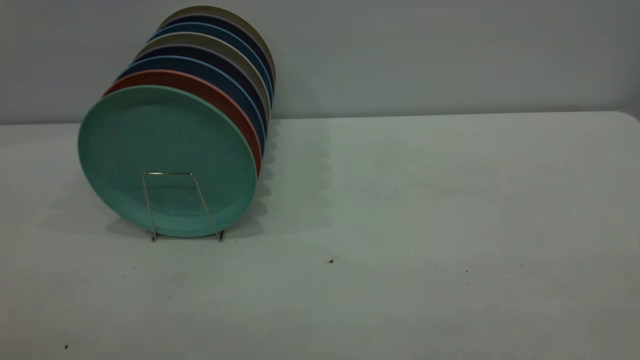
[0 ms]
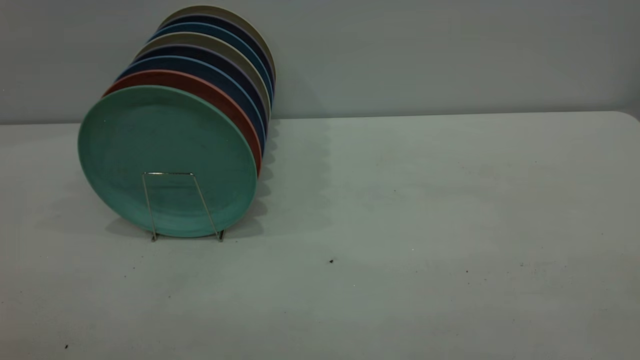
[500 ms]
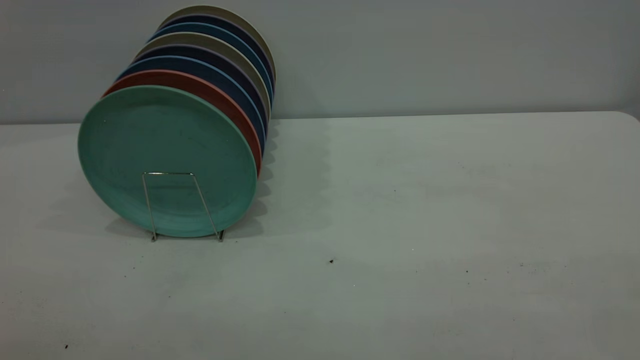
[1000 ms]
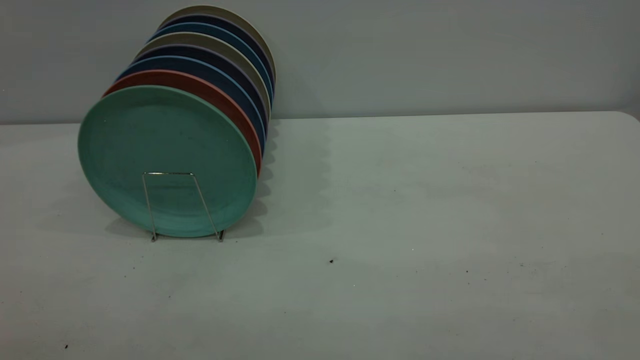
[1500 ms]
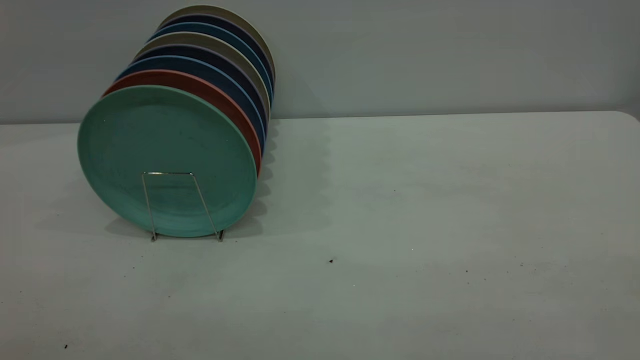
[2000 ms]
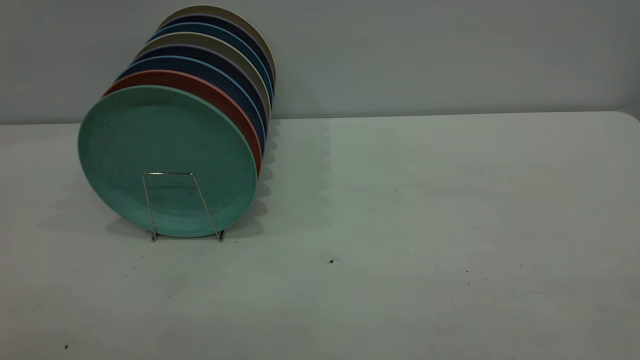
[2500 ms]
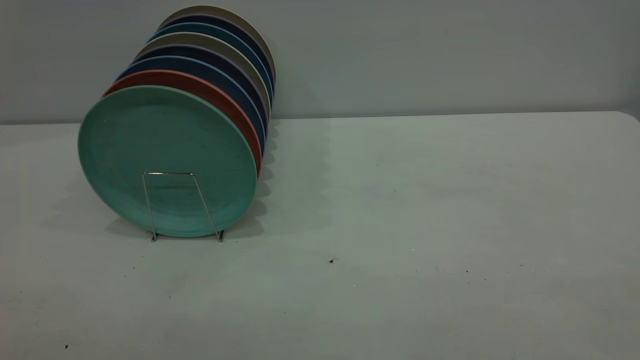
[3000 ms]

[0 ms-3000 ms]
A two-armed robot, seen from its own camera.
Task of the whole recording: the right gripper grasp the green plate, the right gripper pass the green plate to the left gripper, and the left gripper place the green plate on the plate rack.
0 ms to 1500 ms: Both grippers stay about where they are.
